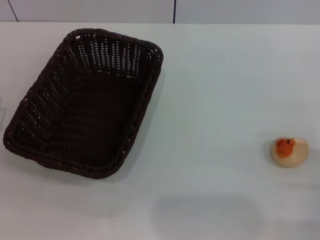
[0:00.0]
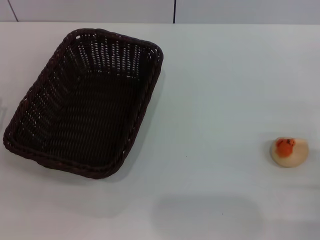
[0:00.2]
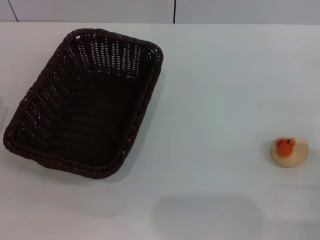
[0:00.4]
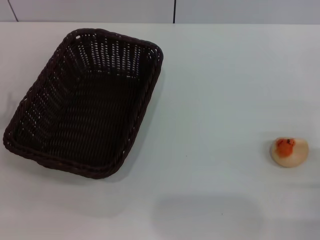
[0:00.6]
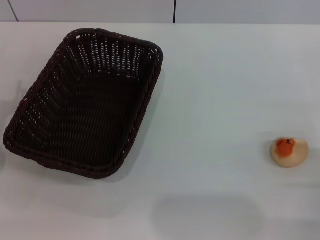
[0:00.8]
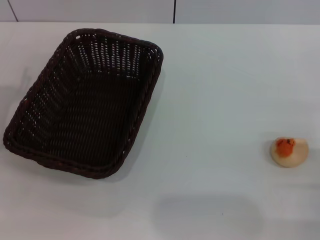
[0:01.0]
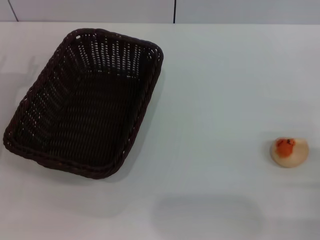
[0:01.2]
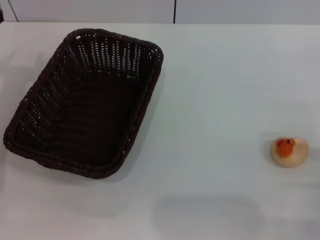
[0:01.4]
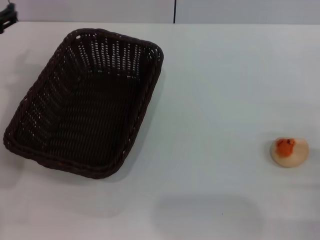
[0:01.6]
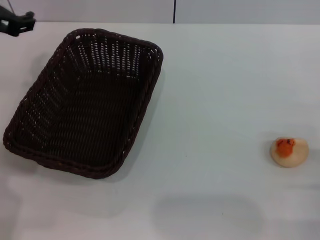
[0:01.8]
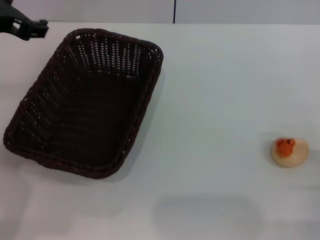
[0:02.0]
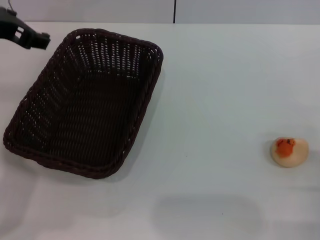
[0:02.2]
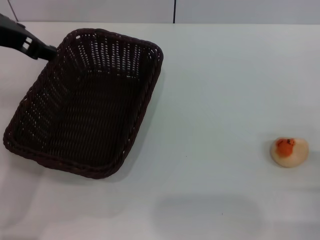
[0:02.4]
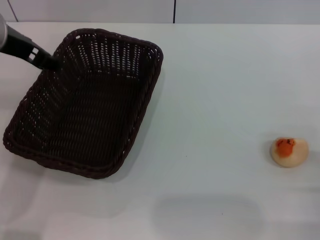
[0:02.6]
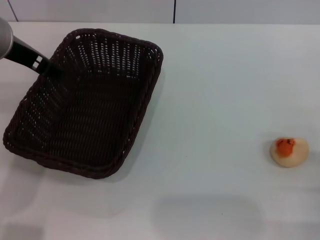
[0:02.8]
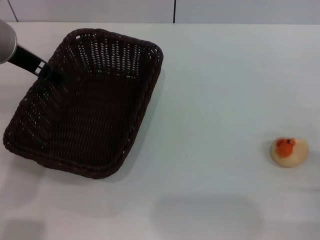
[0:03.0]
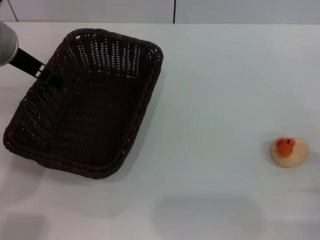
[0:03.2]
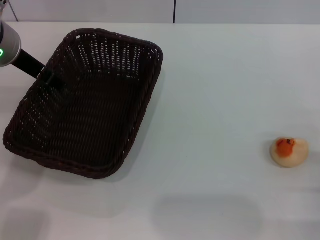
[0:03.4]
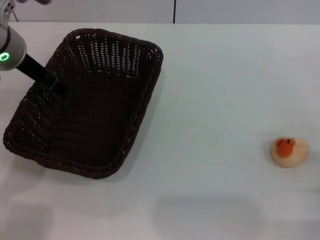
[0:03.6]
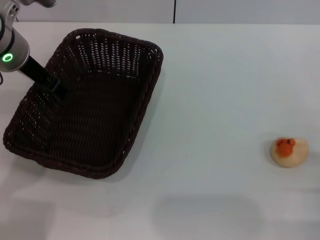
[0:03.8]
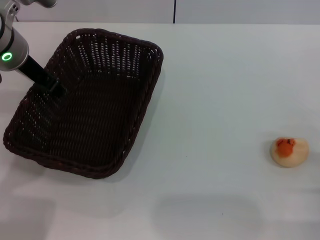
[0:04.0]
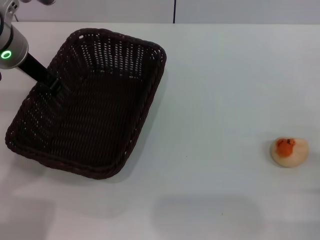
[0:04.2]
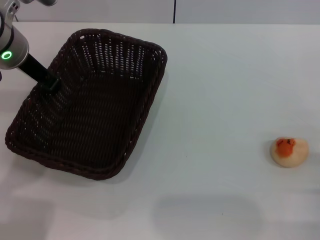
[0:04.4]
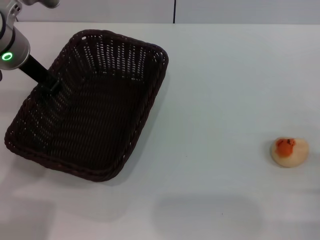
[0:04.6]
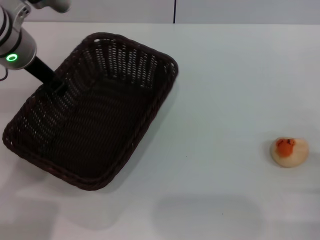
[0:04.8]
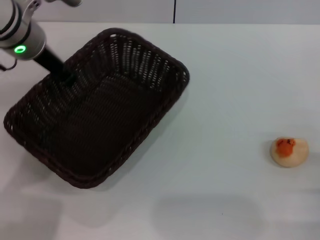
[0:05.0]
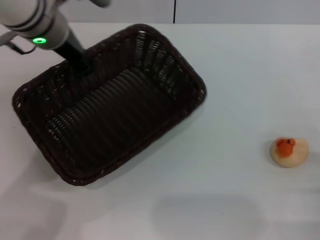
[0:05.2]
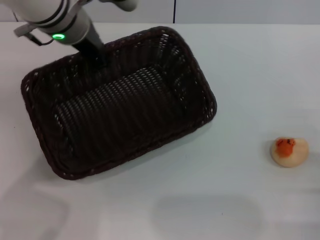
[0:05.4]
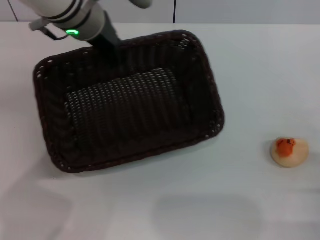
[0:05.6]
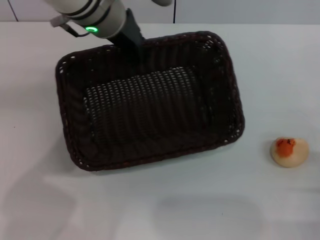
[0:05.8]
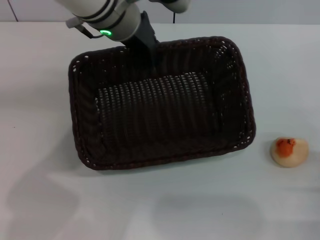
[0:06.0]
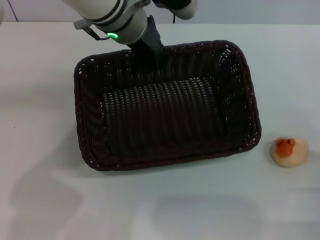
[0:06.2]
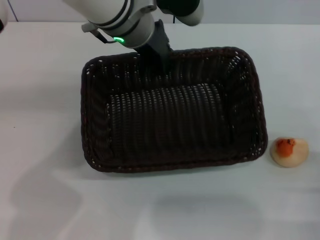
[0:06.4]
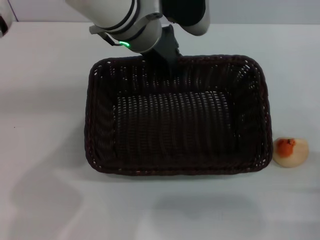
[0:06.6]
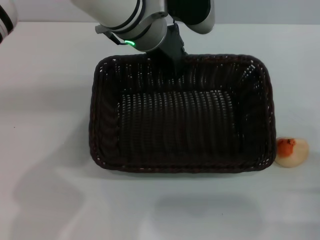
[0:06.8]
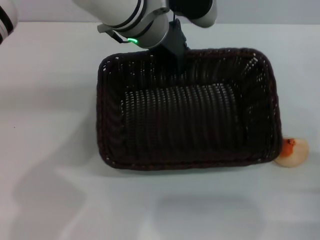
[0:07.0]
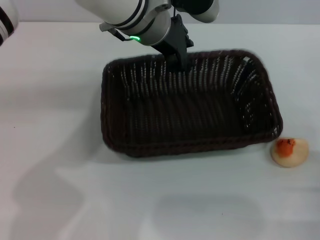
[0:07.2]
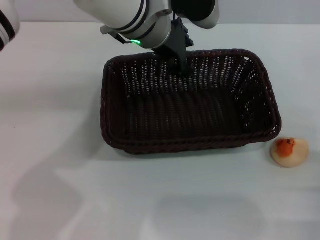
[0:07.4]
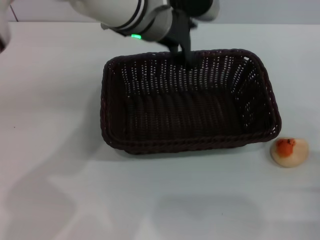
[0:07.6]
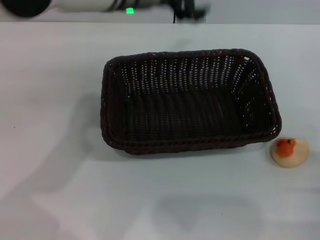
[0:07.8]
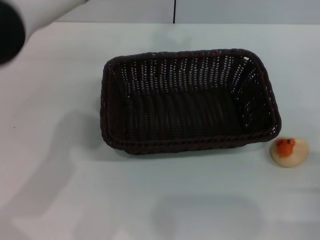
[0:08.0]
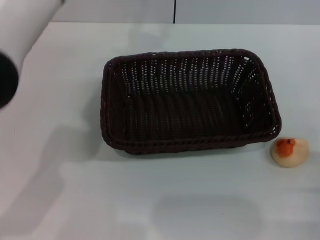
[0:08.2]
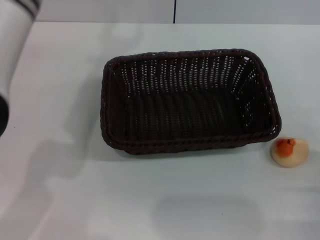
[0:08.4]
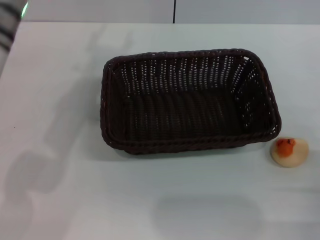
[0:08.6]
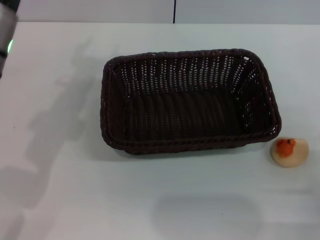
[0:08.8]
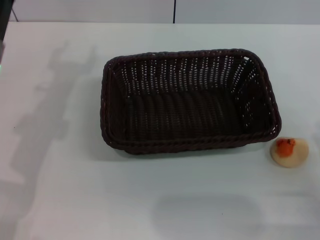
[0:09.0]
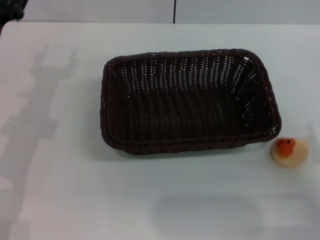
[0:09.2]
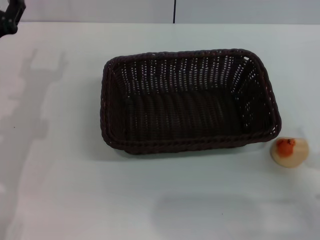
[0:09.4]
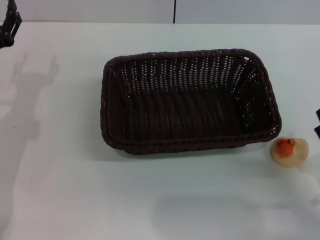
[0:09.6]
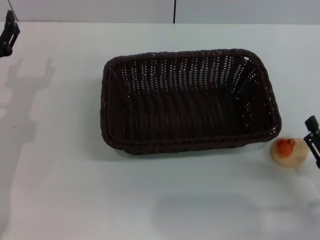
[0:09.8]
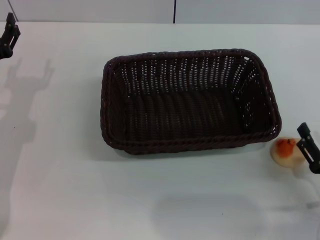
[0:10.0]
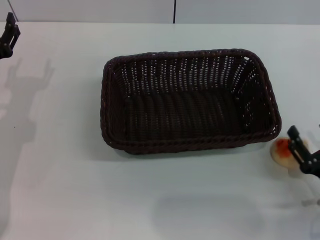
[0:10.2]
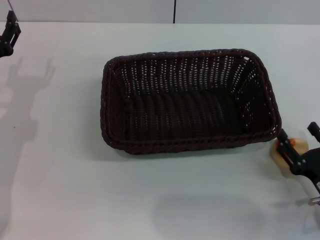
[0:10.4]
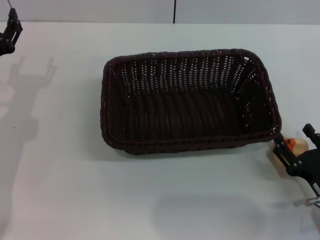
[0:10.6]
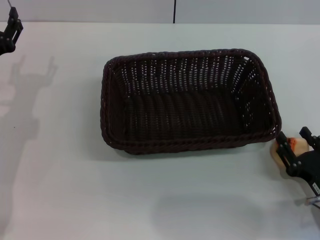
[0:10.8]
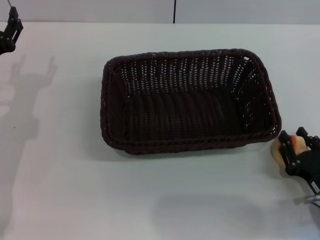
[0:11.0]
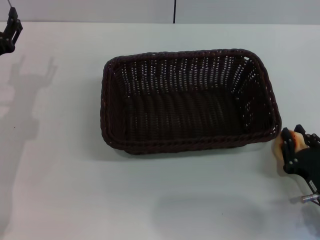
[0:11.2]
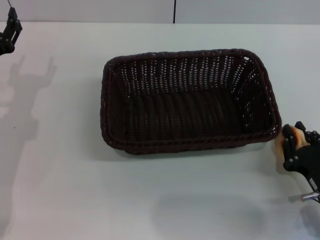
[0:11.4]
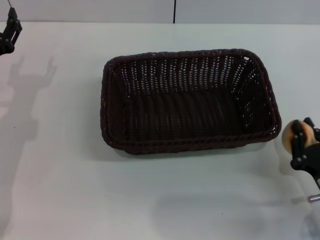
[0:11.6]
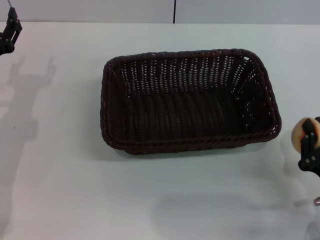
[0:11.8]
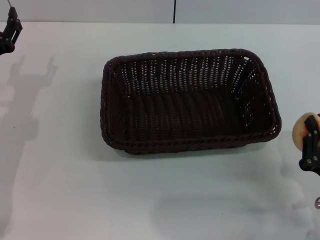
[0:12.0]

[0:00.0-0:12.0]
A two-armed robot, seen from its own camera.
Step, 0.0 to 7.6 s: Move the basket to the center of view with the left gripper.
1.6 to 3.0 s: The left gripper is displaced to the right by some 5 cm.
3.0 to 4.4 s: The left gripper closes up.
4.4 to 6.0 s: The left gripper shifts approximately 15 cm to the right.
6.0 to 7.6 s: The left gripper opens up.
7.6 to 9.0 s: The left gripper is displaced to the left, backward and downward by approximately 20 cm.
9.0 to 10.4 s: The left gripper is displaced downward by about 5 cm.
10.4 to 12.0 s: The right gripper closes.

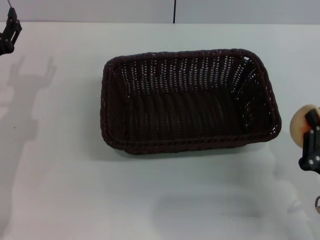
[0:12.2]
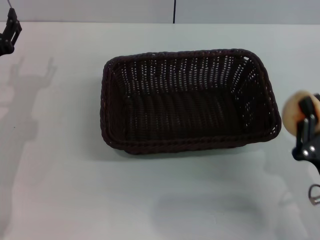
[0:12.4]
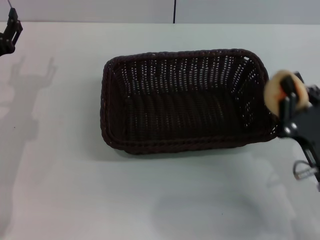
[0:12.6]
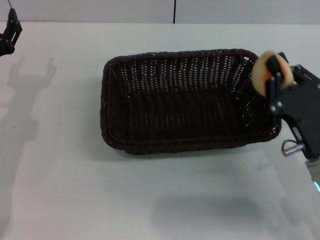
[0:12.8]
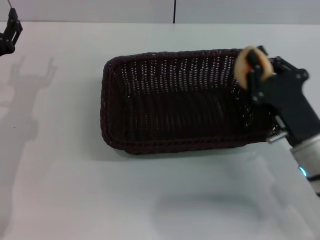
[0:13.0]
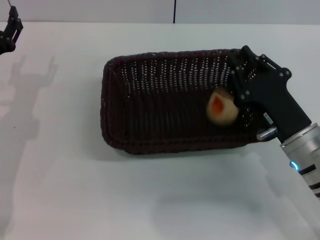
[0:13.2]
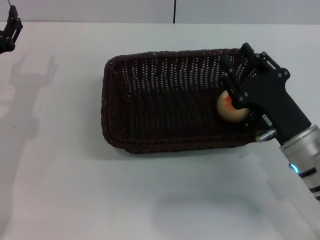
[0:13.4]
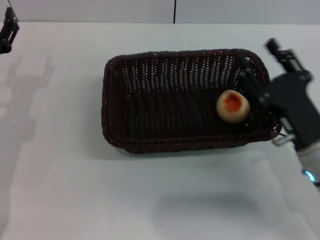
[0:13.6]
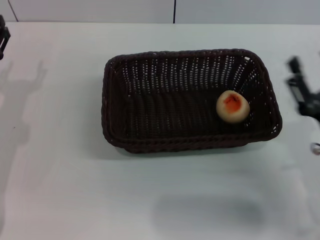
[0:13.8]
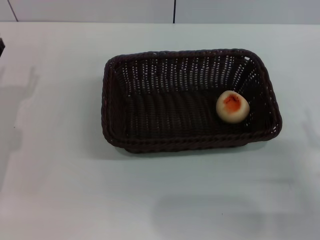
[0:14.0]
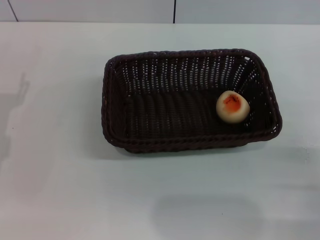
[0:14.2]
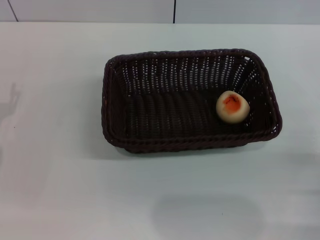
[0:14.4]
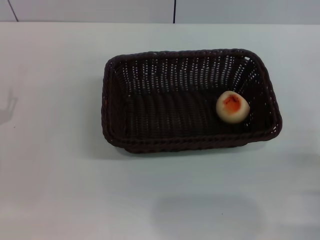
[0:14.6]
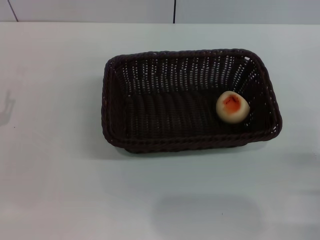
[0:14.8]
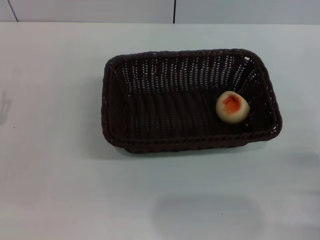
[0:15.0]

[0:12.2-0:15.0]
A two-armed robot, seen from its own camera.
Step, 12.4 to 13.4 s: Place the egg yolk pastry into the basket with the right gripper.
12.2 to 13.6 s: The right gripper heads forward, covering approximately 10 cm, and opens up.
13.6 to 15.0 s: The right gripper is displaced to the right and backward by roughly 15 cm; the left gripper is displaced backward by some 10 cm.

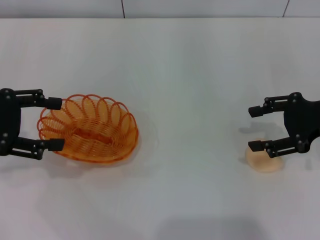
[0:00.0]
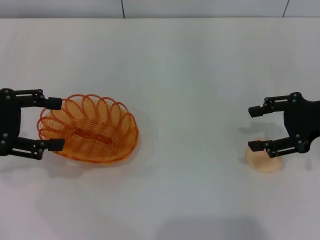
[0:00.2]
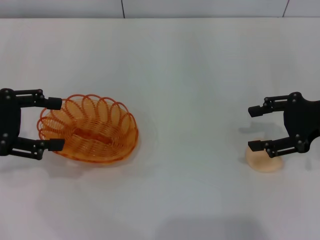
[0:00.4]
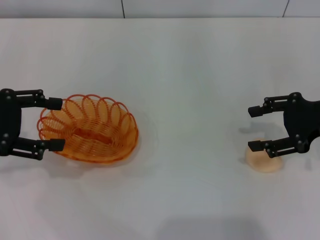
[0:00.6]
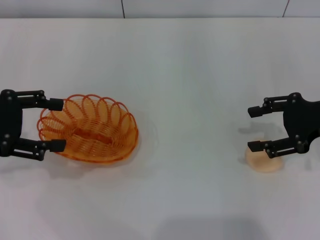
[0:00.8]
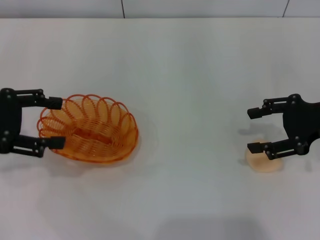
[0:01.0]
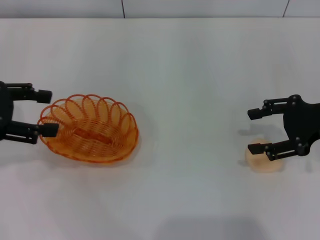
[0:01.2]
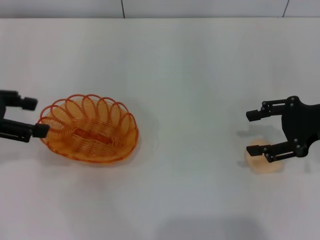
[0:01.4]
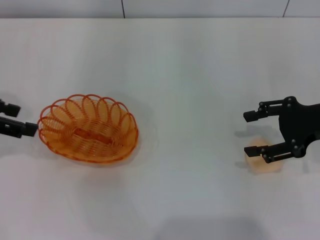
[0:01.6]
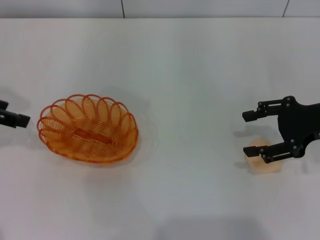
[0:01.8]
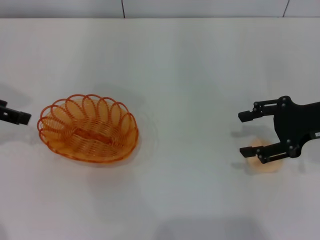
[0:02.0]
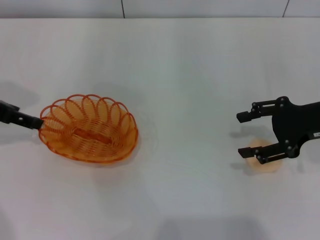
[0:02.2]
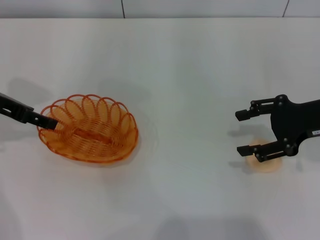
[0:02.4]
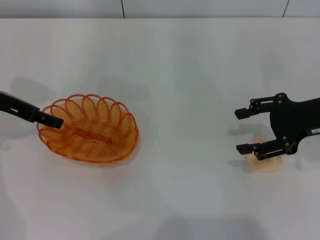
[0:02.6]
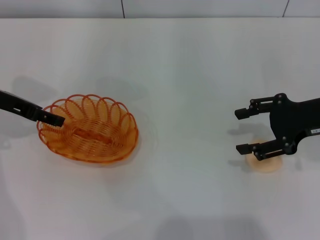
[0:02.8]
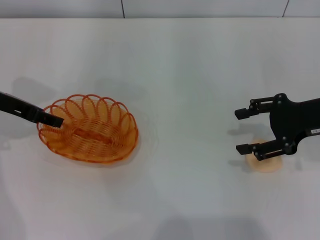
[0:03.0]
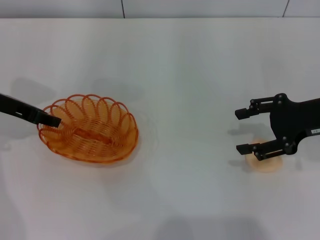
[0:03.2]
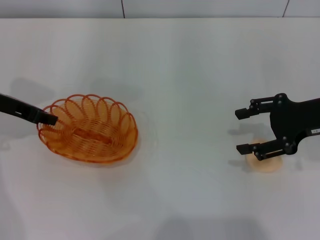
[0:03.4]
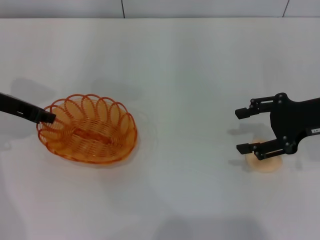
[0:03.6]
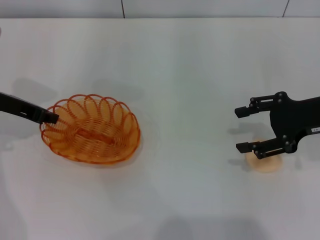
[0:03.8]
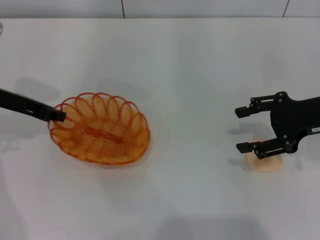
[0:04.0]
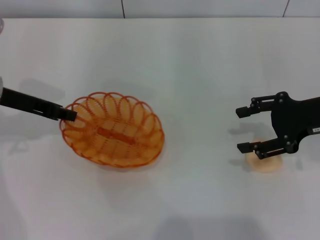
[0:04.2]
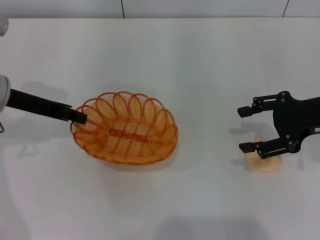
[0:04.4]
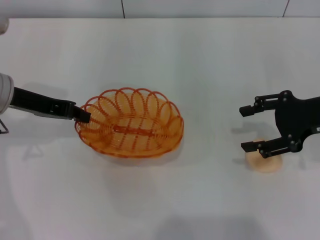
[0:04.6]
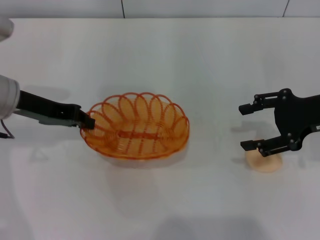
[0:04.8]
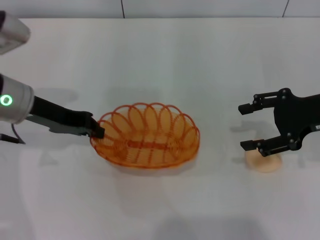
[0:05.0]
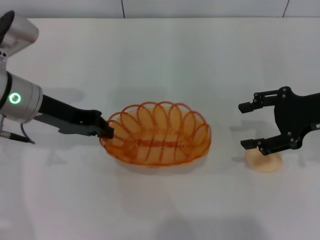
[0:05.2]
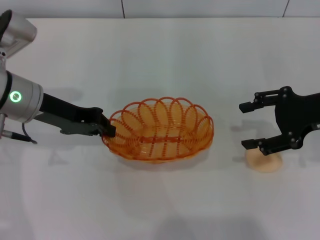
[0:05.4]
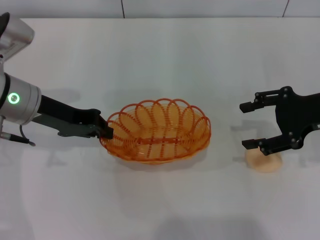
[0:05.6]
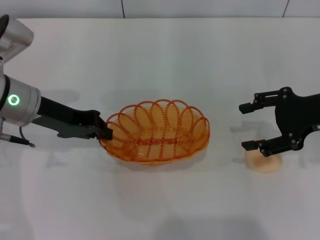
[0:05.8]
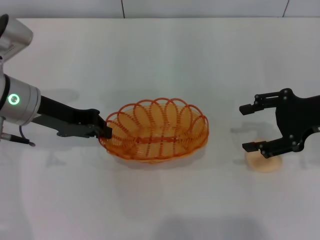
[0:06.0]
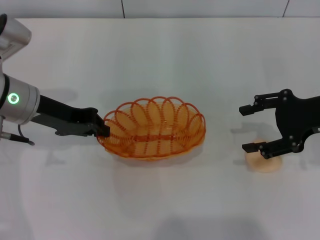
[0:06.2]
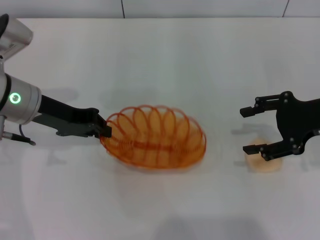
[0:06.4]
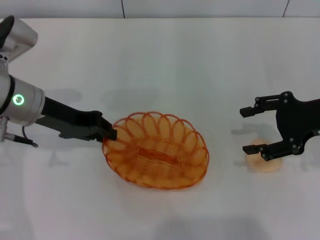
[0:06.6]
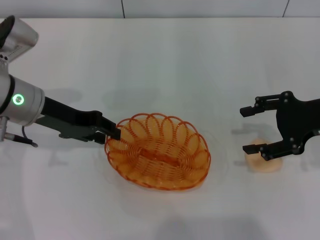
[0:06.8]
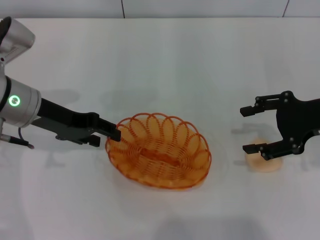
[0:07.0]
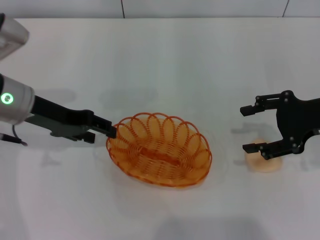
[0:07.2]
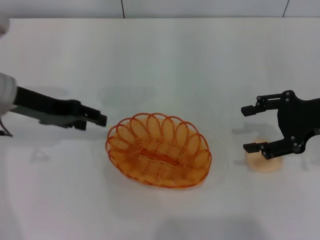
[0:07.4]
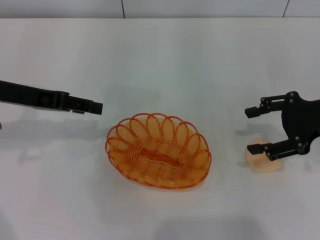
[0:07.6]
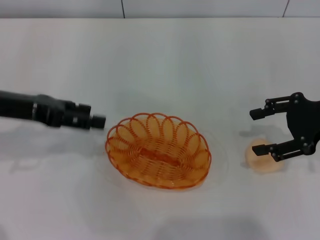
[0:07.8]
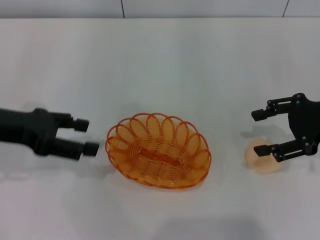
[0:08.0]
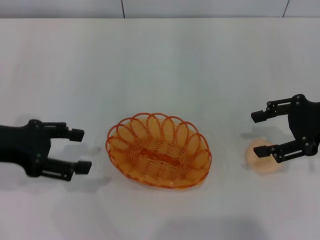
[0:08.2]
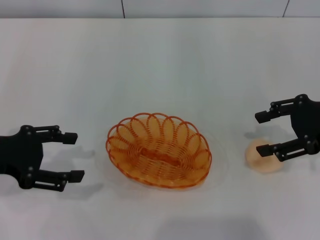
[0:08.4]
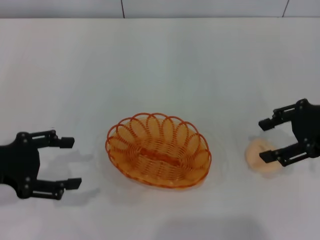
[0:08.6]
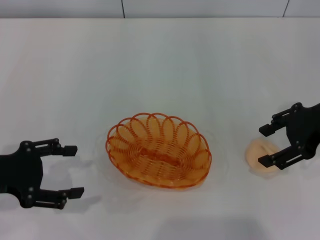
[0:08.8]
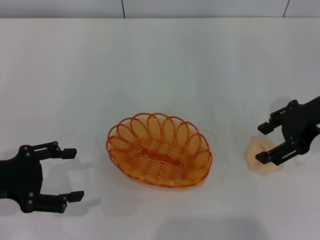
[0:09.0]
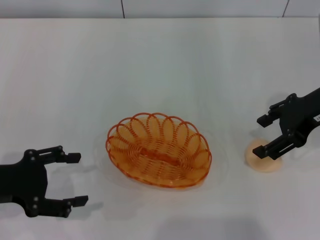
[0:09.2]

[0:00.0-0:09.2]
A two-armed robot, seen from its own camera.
Step, 0.0 to 5.2 s: Pick up the basket with the left gripper.
Step, 5.4 to 7.2 s: Place the basket in the center of view with the left gripper.
1.6 to 3.0 s: The left gripper travels downward and forward by some 10 cm.
3.0 to 4.6 s: The left gripper closes its fingers.
4.6 to 6.2 s: There are only small adjustments of the grippers.
6.2 to 7.6 s: The left gripper changes place by some 5 cm, and opens its fingers.
7.6 to 9.2 s: The left gripper moves backward and downward, about 15 cm, while the right gripper moves approximately 5 cm.
